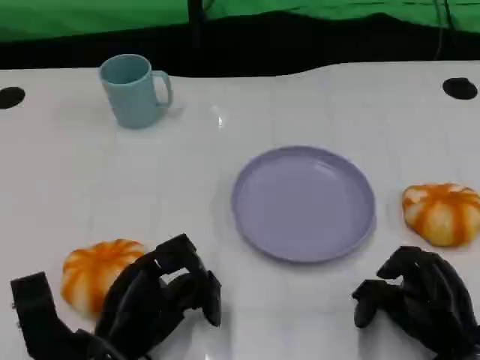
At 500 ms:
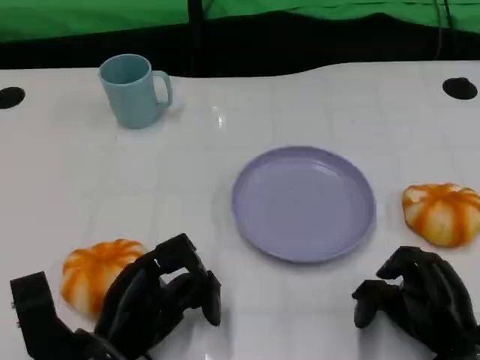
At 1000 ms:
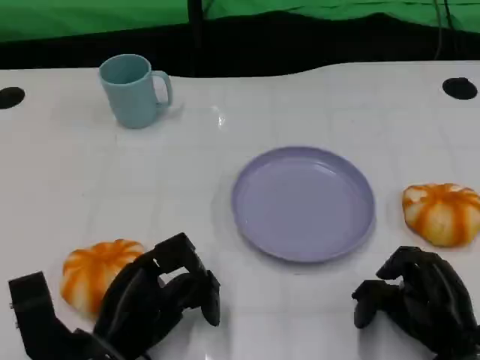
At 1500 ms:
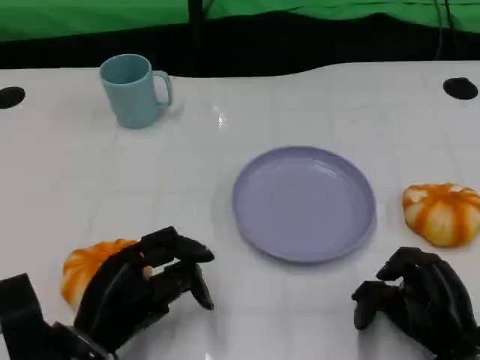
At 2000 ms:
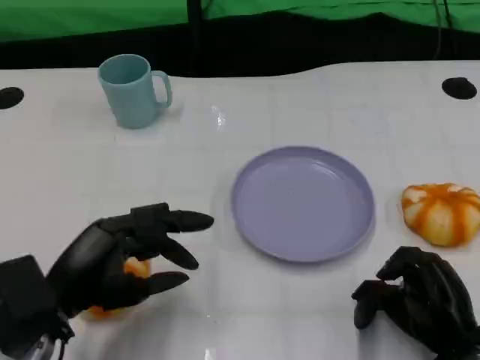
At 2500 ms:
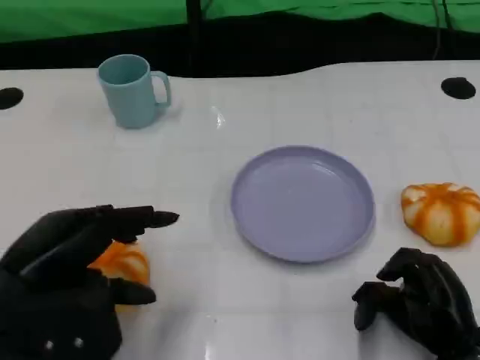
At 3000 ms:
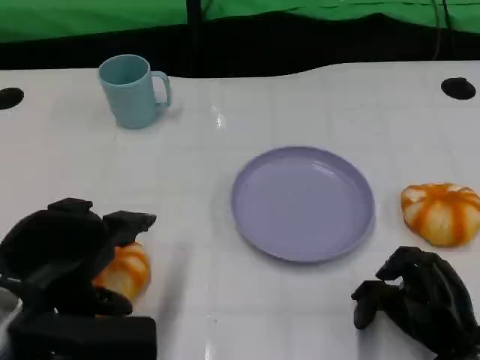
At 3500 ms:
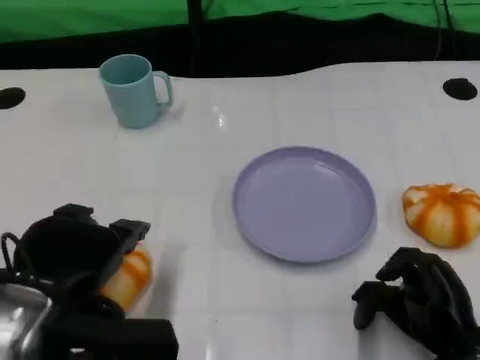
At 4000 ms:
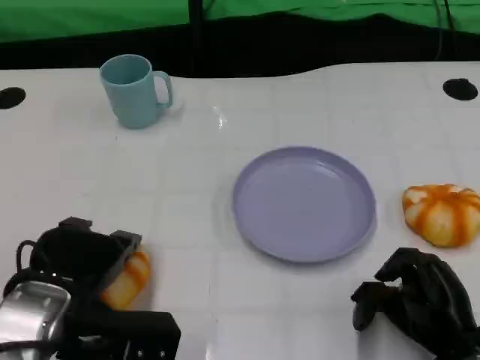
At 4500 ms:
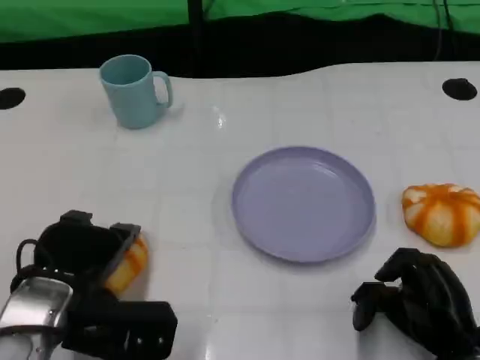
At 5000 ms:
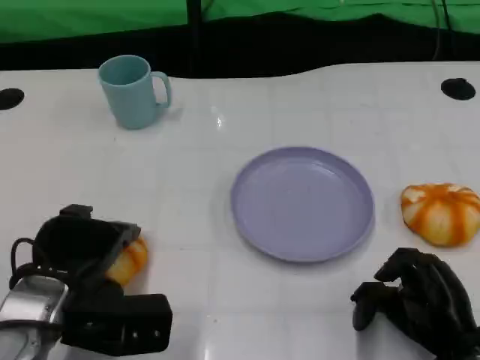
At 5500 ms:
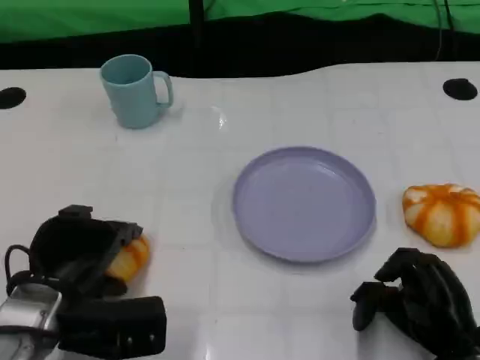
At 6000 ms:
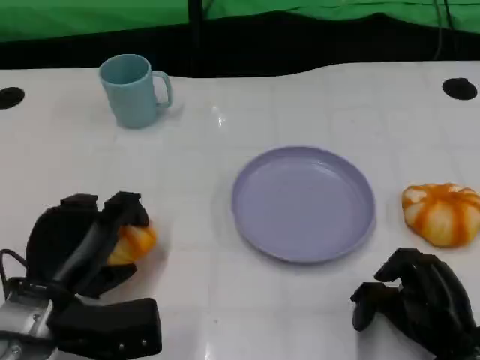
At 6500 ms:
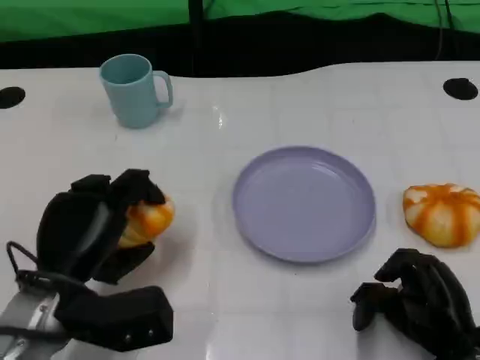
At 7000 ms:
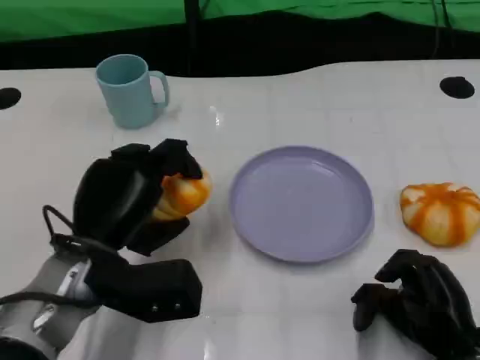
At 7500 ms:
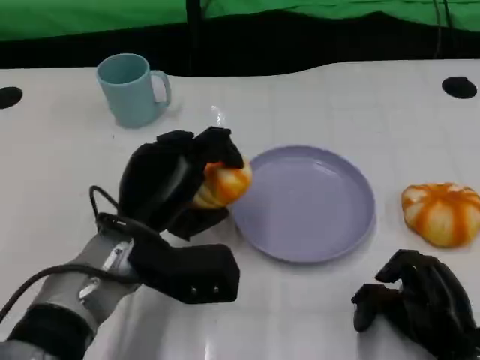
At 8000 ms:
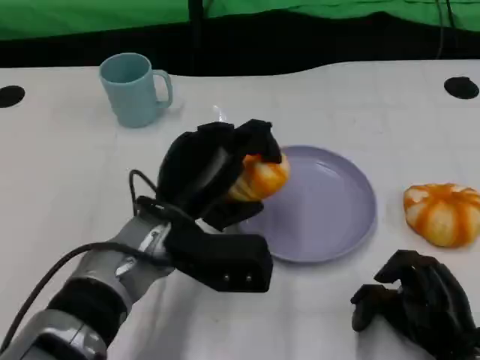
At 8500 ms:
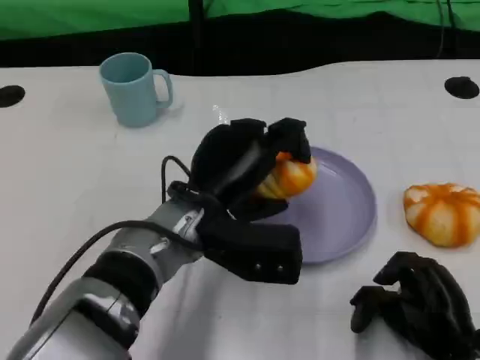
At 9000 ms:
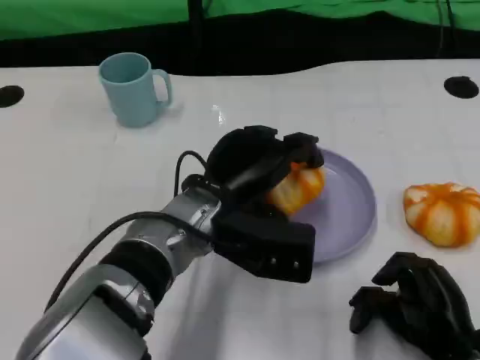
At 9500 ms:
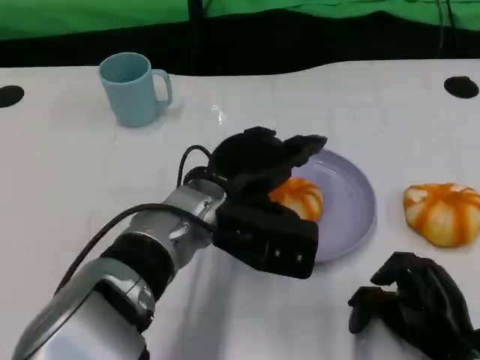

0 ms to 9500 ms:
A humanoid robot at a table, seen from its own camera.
Task of the whole recording: Grasp the bread from the table and place it into the plate.
0 ms to 2000 ms: The left hand is displaced upward by about 5 cm.
5500 ms to 7500 ms: The left hand heads to the right, covering approximately 10 cm.
7500 ms to 9500 ms: The left hand moves to the right, roughly 5 cm.

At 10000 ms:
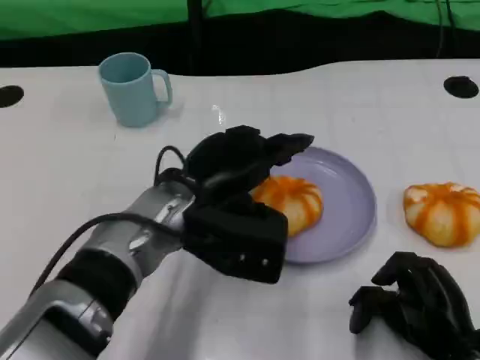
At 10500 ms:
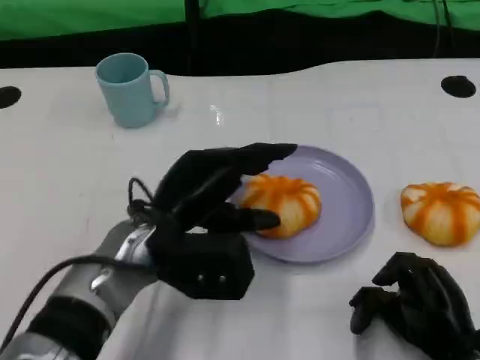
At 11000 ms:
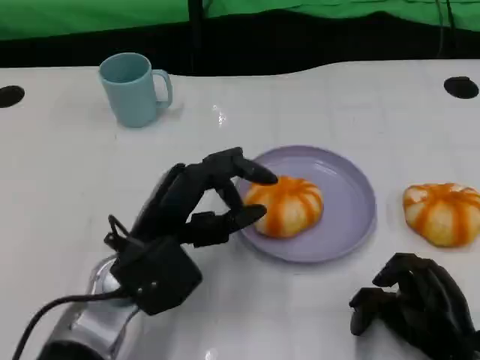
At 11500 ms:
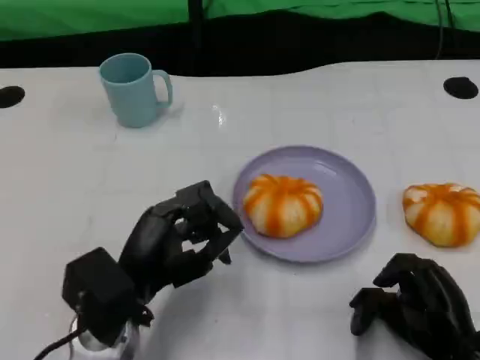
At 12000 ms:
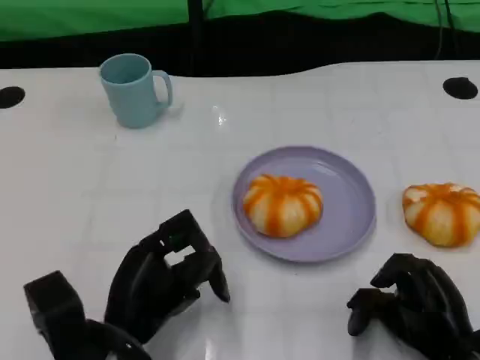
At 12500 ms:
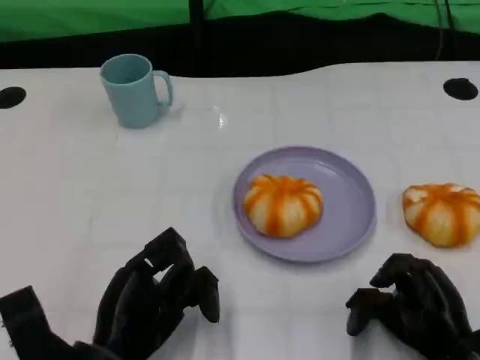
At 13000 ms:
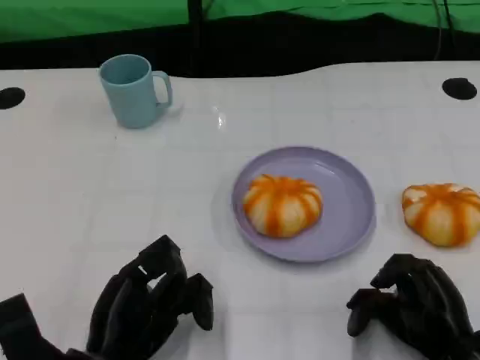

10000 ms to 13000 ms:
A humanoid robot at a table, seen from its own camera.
Task of the whole recording: Grasp the bread from the table and place it into the plate.
10000 ms to 11500 ms: The left hand heads backward, to the left and downward, covering some 10 cm.
11500 ms to 13000 ms: The left hand moves roughly 5 cm.

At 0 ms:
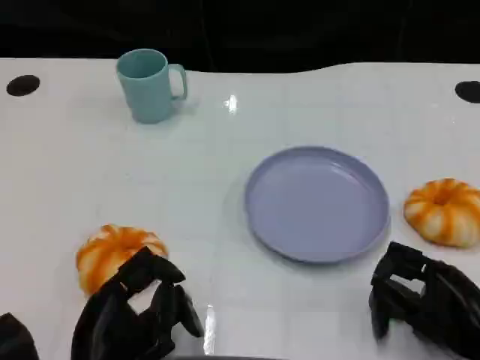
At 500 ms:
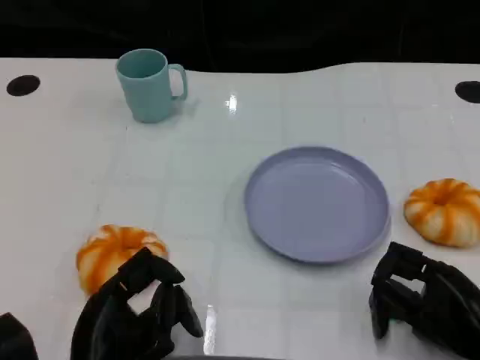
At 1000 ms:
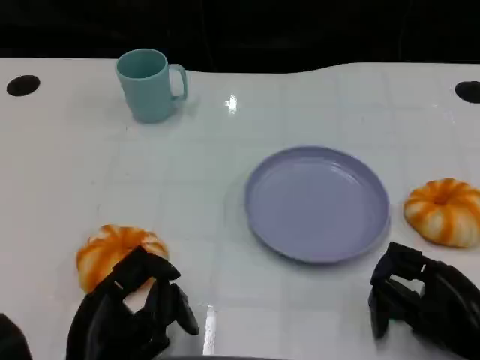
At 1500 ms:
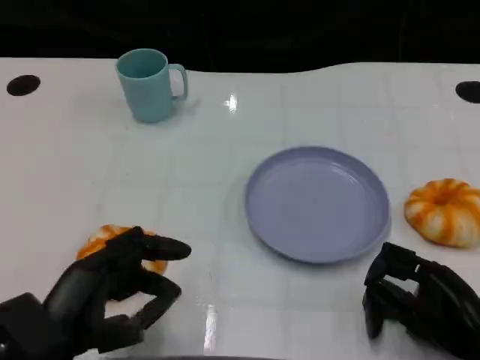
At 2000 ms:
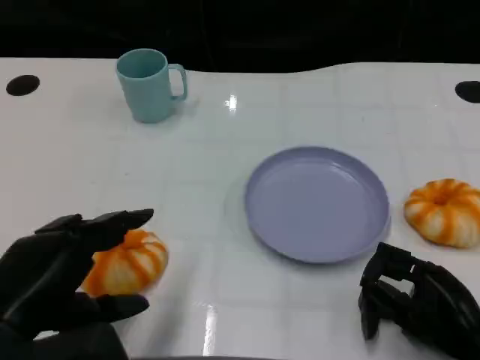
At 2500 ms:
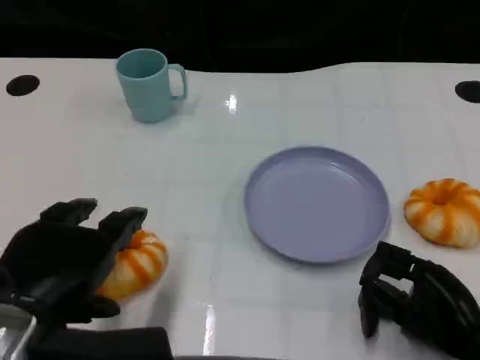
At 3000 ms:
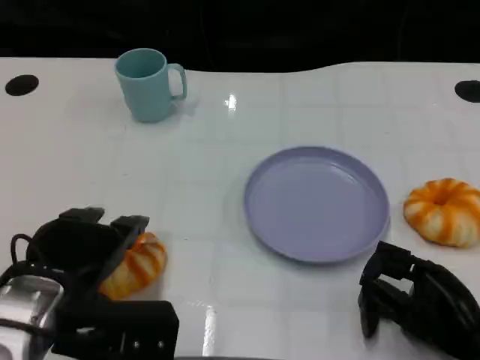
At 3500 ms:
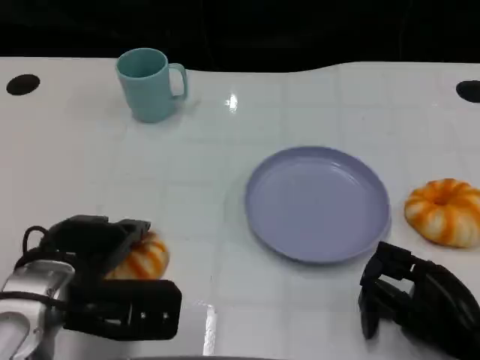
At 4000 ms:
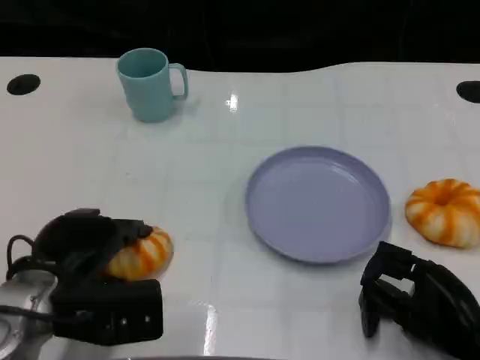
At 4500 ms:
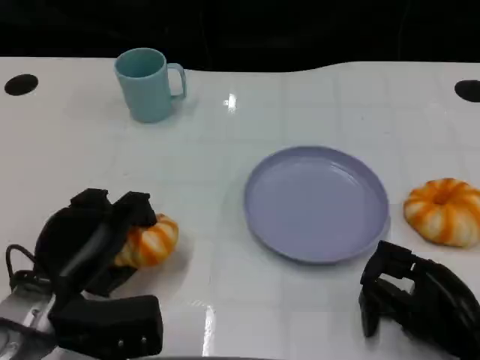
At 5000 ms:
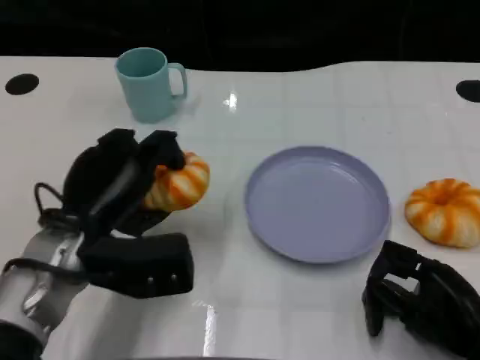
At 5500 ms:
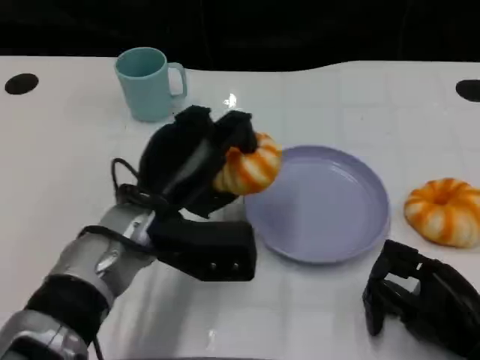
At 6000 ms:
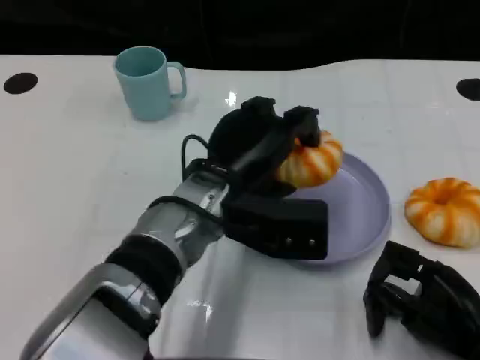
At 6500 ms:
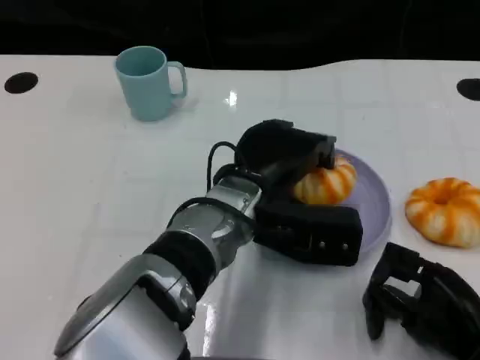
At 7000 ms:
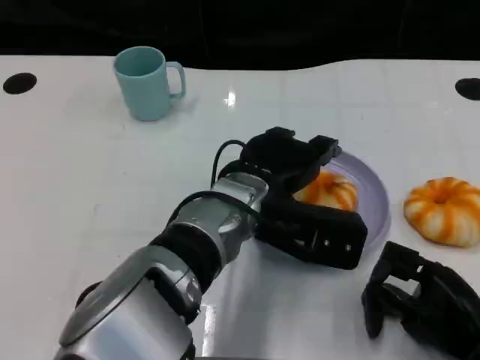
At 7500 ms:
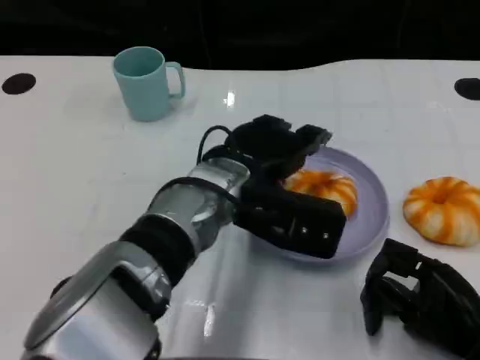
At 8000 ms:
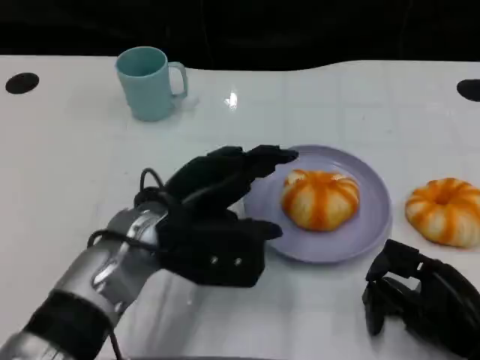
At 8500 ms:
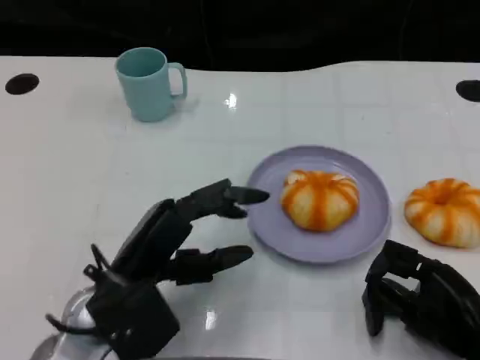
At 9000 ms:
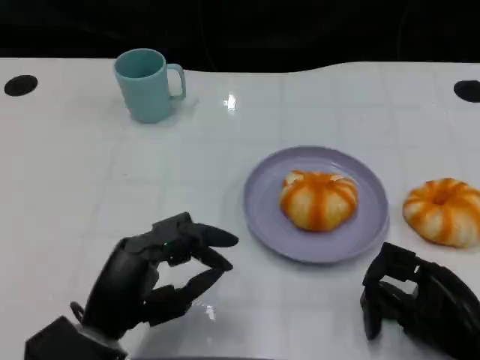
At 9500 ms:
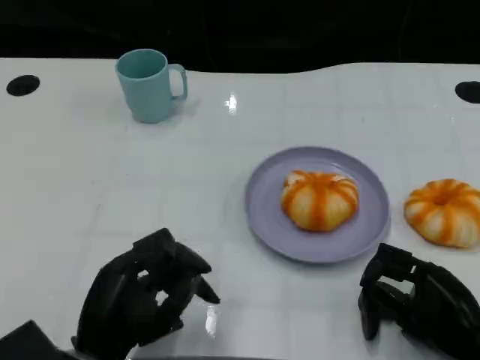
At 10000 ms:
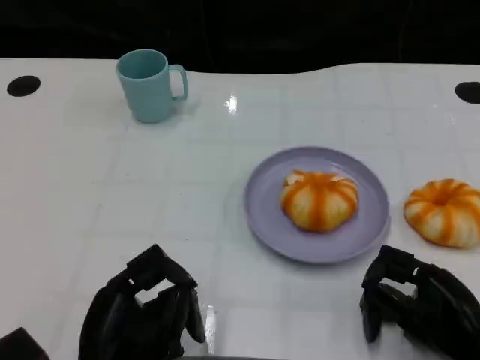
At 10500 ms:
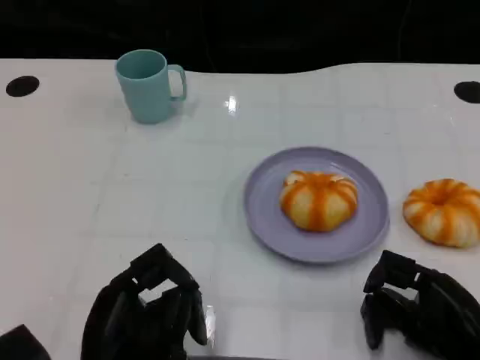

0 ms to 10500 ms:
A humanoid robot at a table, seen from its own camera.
Task of the whole recording: Grasp the bread from the table and place it into the plate.
0 ms to 2000 ms: The left hand goes about 10 cm upward and to the left.
2000 ms to 4000 ms: The left hand moves forward and downward, approximately 10 cm.
4000 ms to 6500 ms: The left hand heads to the right, covering about 20 cm.
6500 ms to 8500 ms: The left hand shifts some 15 cm to the left and backward.
8500 ms to 10500 ms: The left hand moves backward, some 5 cm.

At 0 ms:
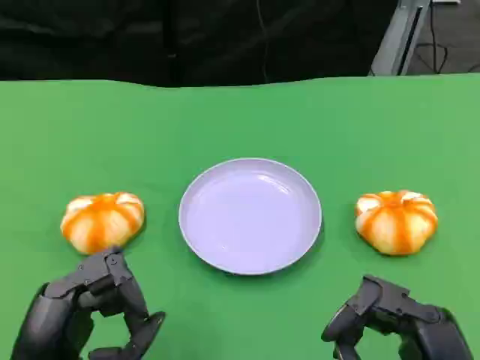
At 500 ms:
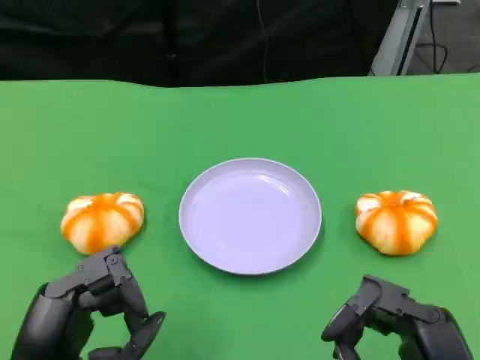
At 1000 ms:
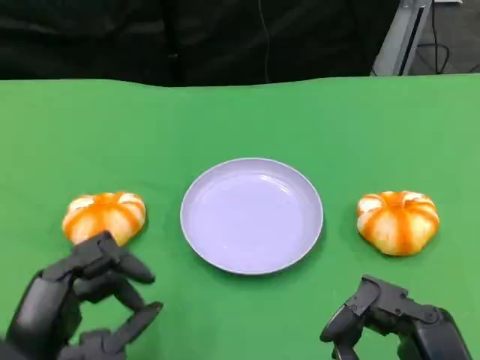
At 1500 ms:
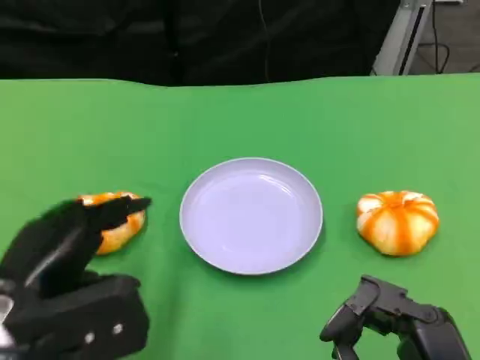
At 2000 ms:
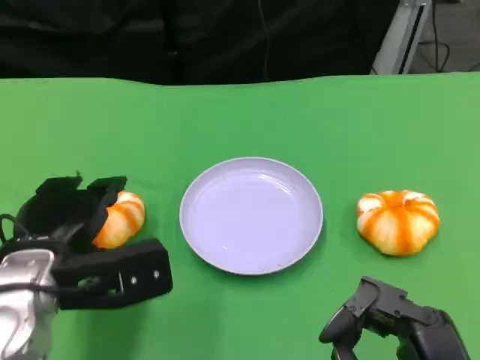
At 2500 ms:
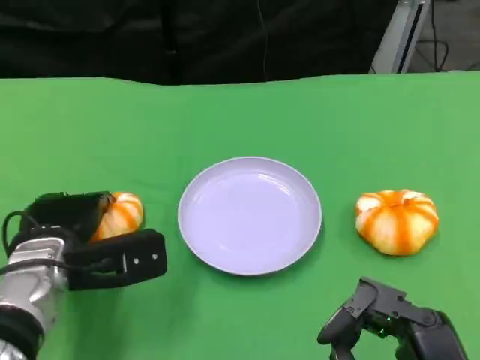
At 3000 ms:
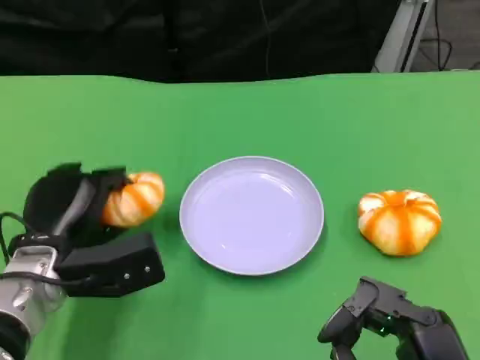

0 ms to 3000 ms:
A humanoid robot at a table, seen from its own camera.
Task of the whole recording: Grasp the bread from the table and place it into the plate.
0 ms to 1500 ms: The left hand shifts about 5 cm forward.
1500 ms to 3000 ms: The left hand shifts some 10 cm forward and downward.
